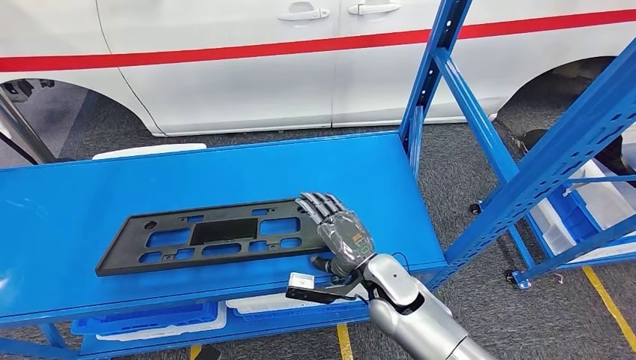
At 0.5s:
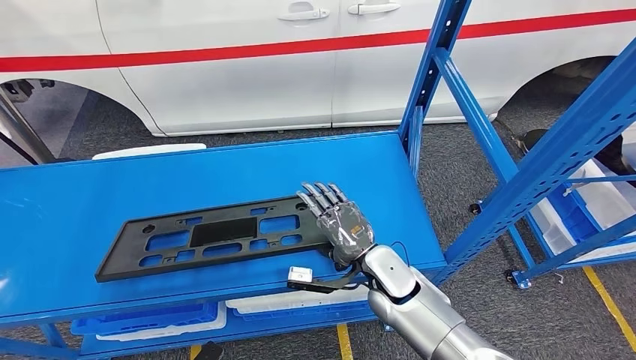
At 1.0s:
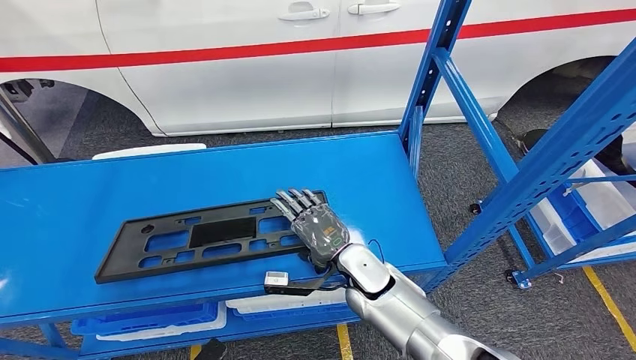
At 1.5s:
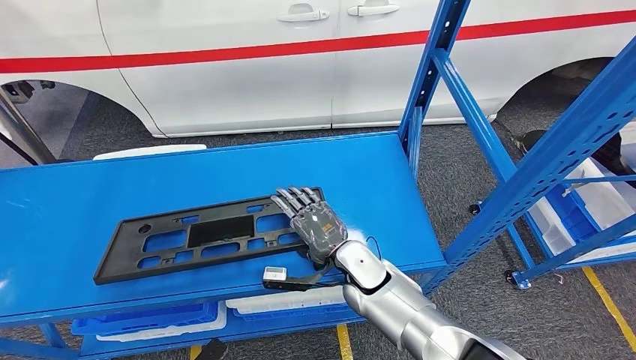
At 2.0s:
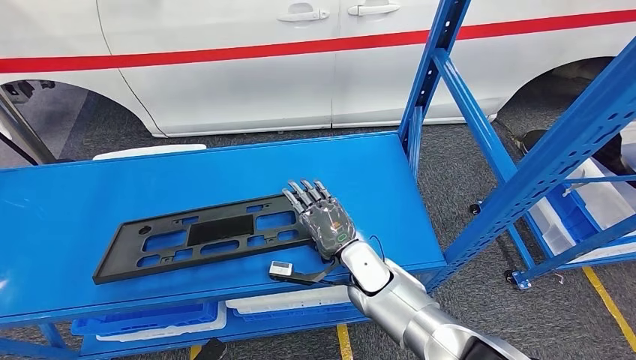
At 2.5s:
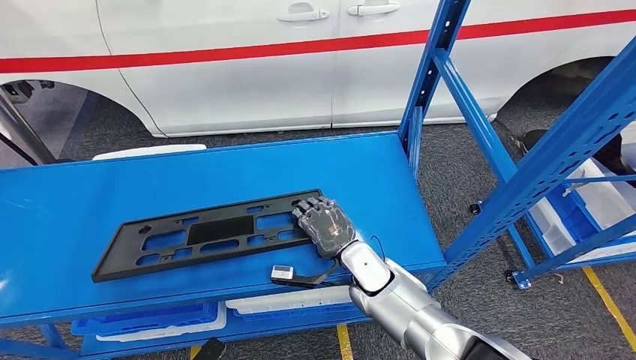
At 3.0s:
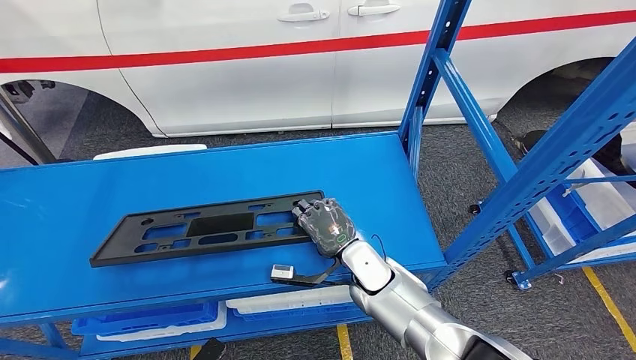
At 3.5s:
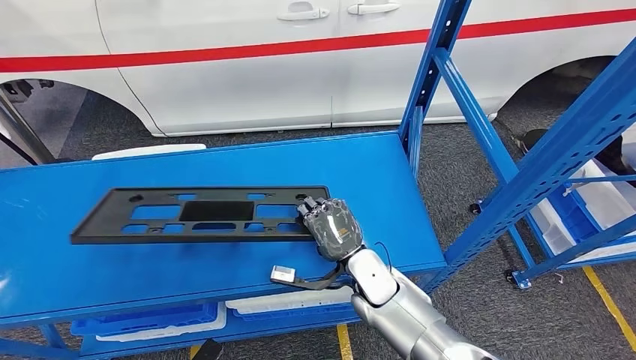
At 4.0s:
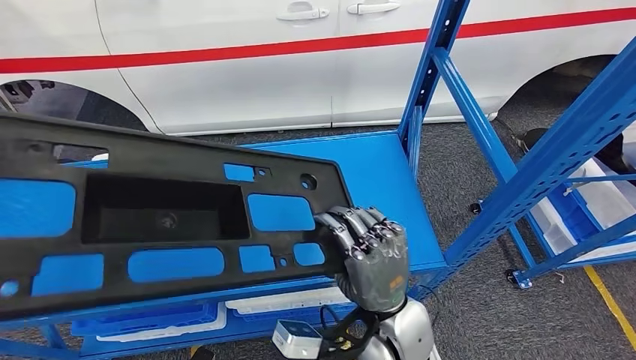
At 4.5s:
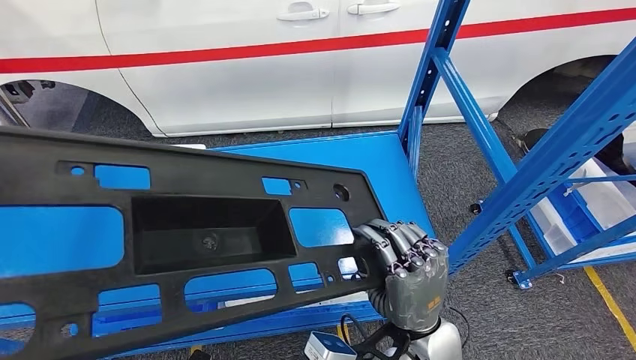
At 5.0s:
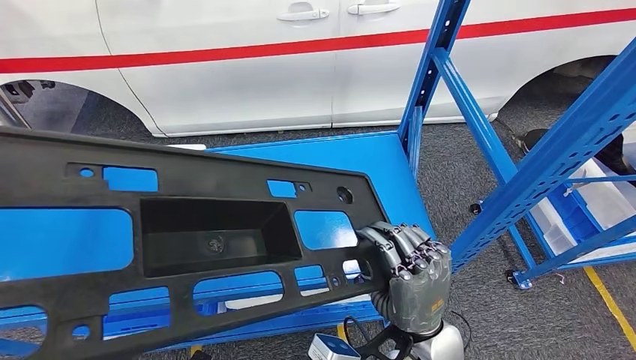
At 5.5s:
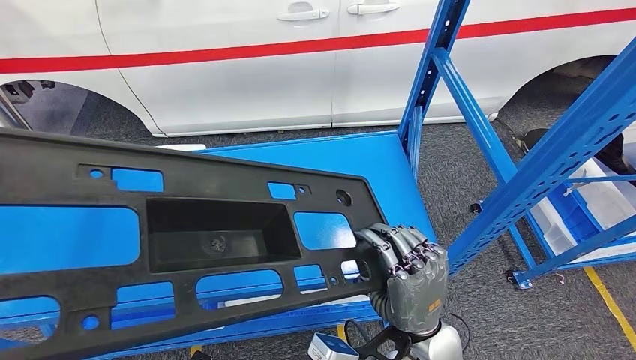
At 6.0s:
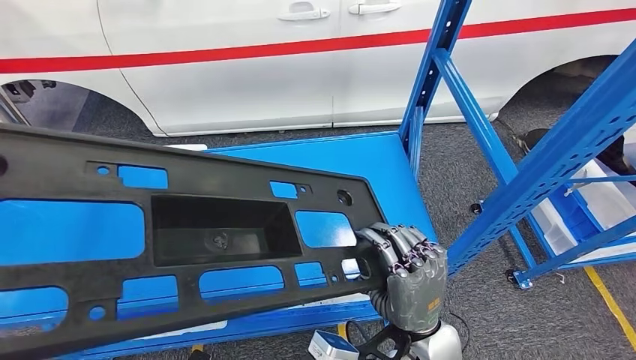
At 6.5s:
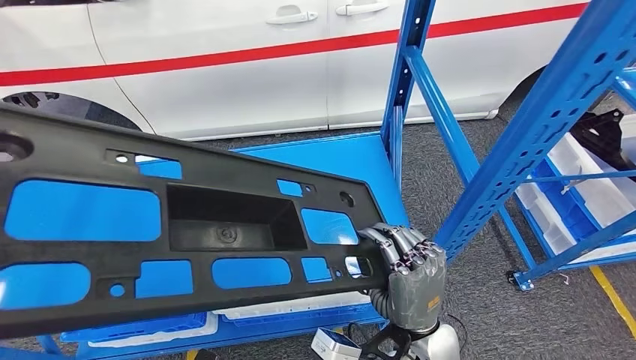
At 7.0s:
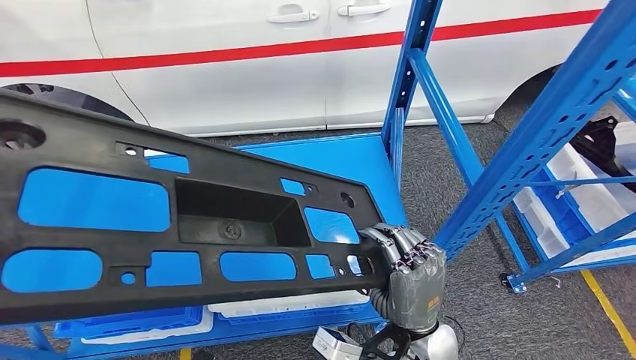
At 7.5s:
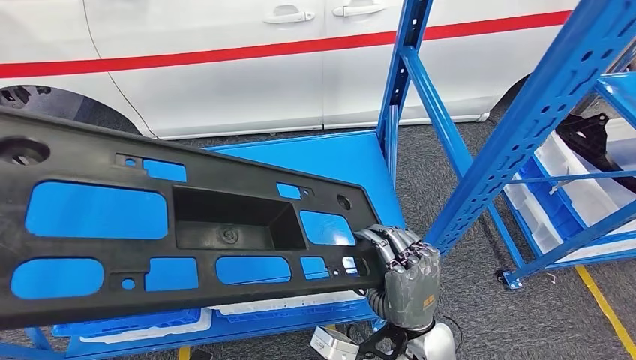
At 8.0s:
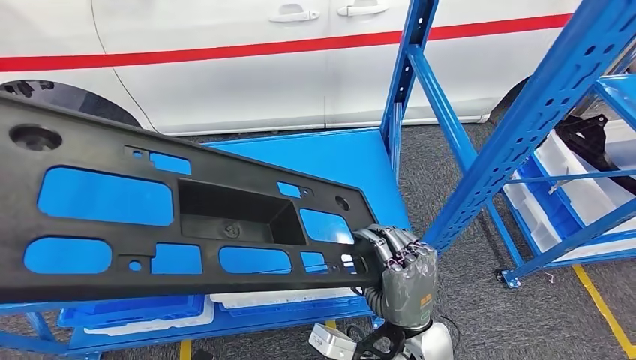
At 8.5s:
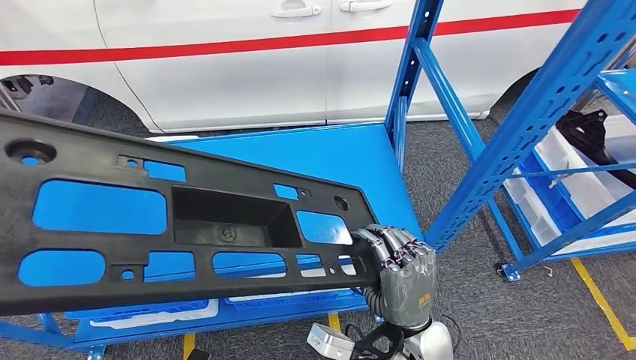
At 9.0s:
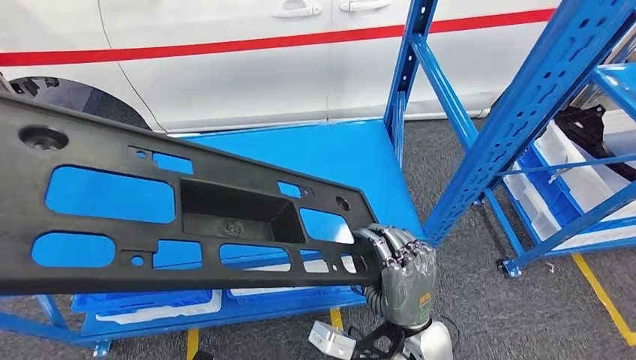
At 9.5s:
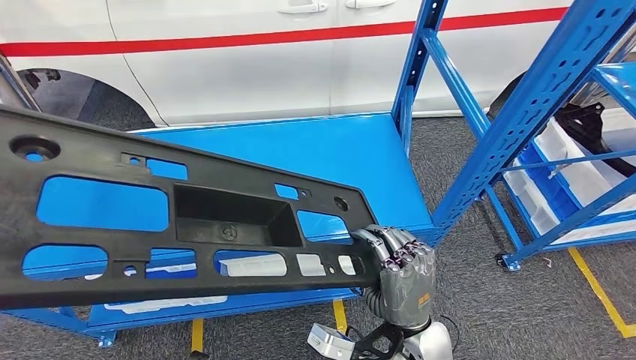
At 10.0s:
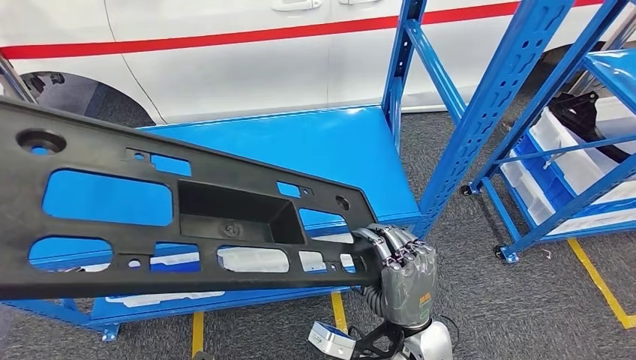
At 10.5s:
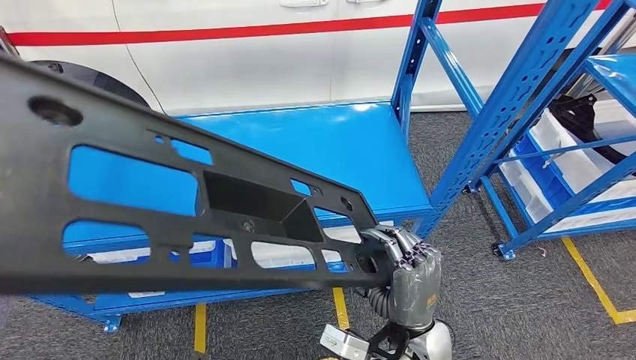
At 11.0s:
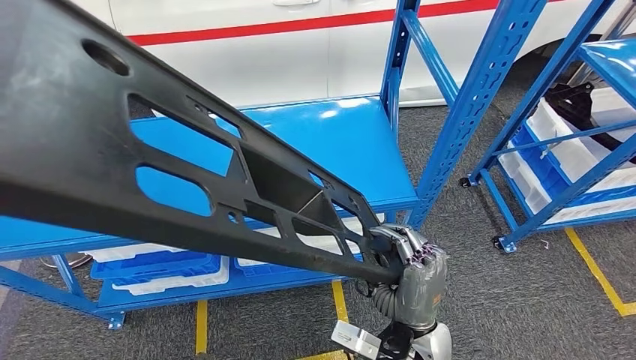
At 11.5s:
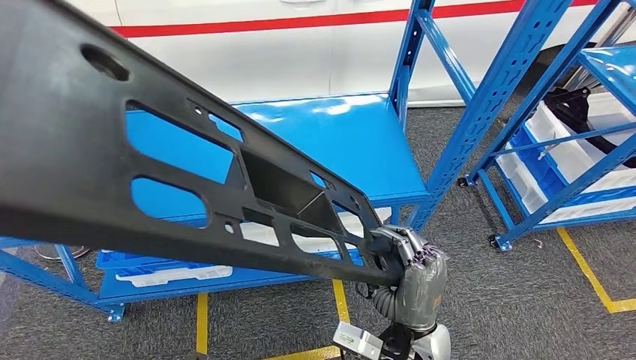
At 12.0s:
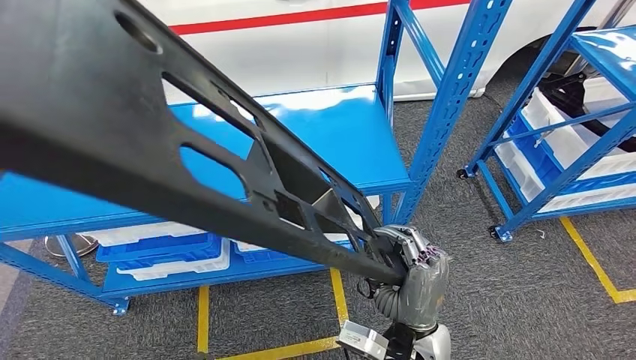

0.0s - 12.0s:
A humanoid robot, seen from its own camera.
Step, 0.0s - 4.0s: Pick up the large material from the shelf.
0.0s - 2.0s: The right hand moves some 5 cm.

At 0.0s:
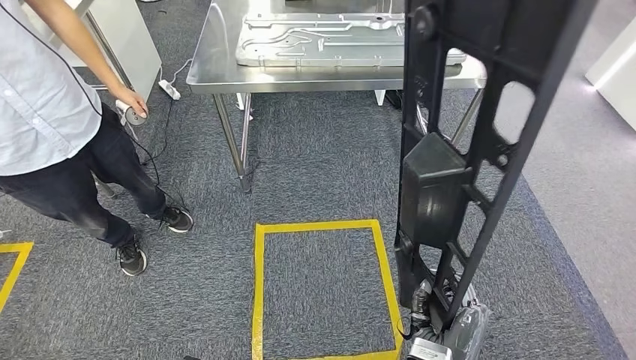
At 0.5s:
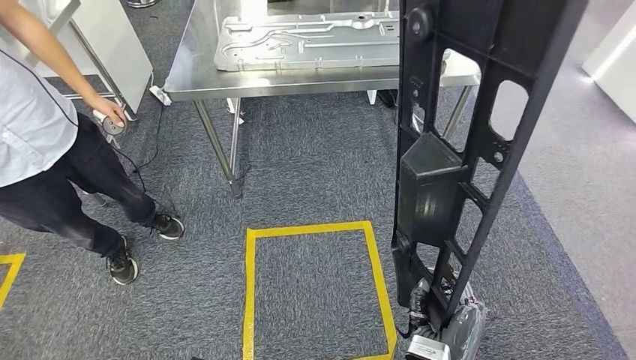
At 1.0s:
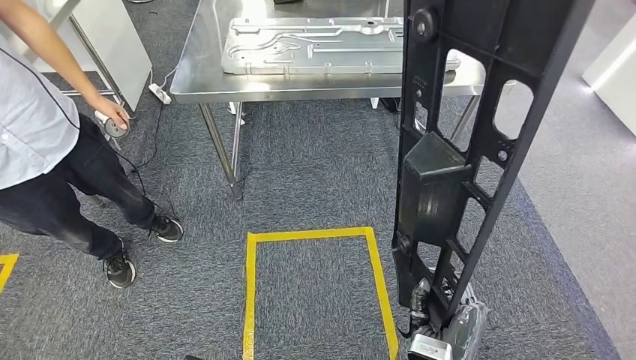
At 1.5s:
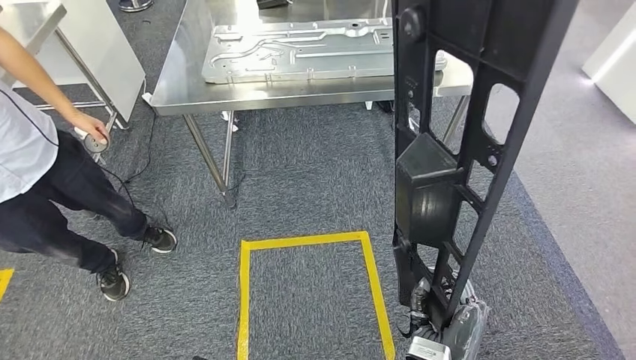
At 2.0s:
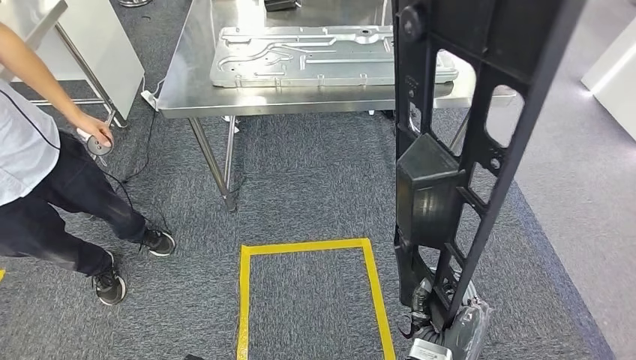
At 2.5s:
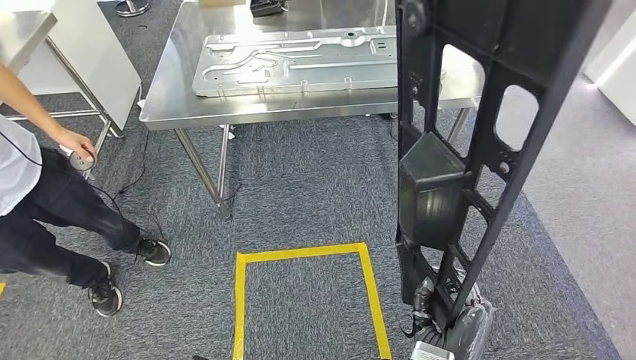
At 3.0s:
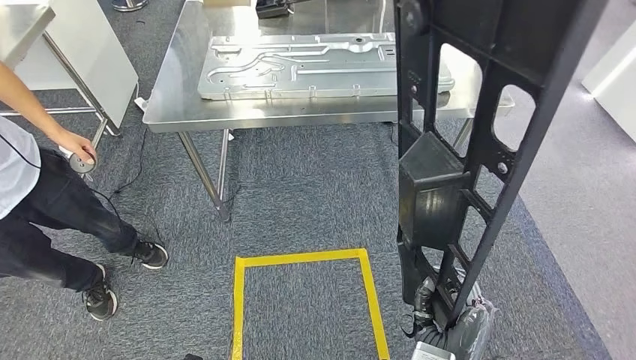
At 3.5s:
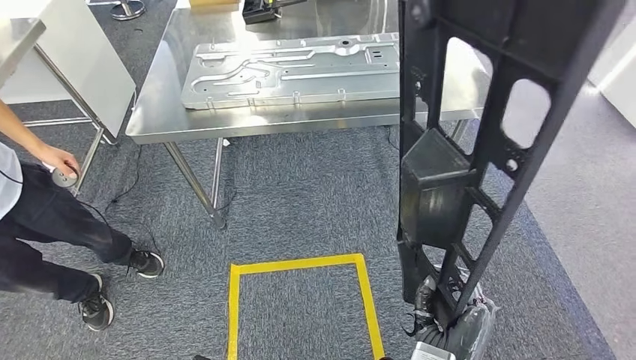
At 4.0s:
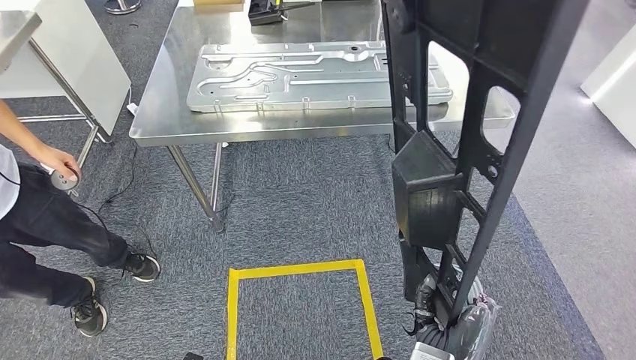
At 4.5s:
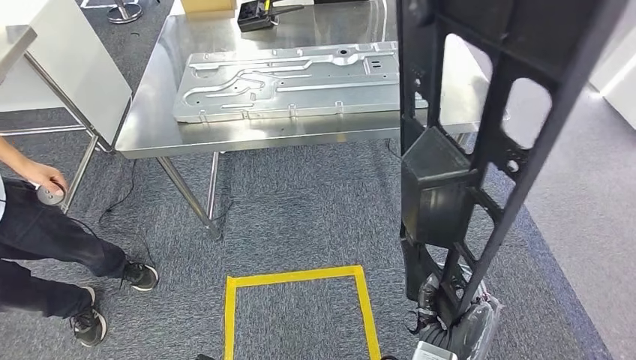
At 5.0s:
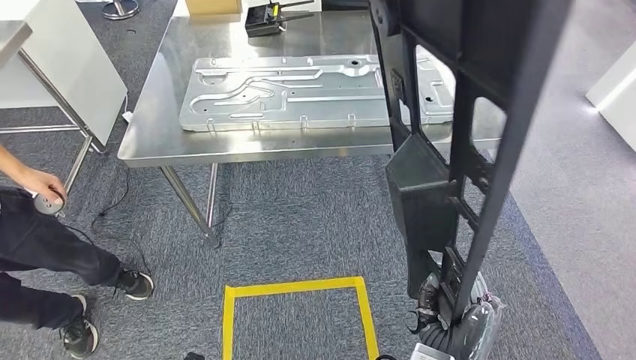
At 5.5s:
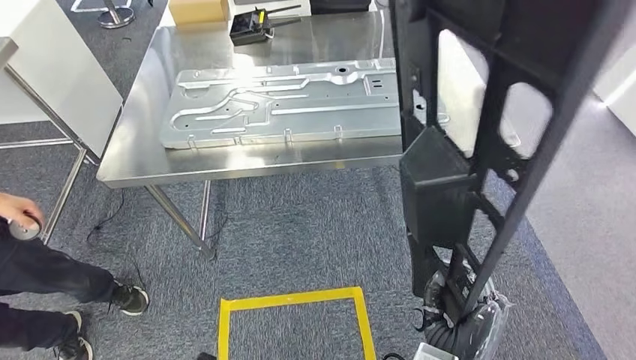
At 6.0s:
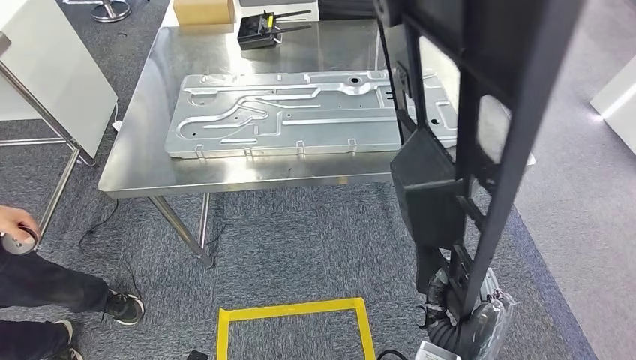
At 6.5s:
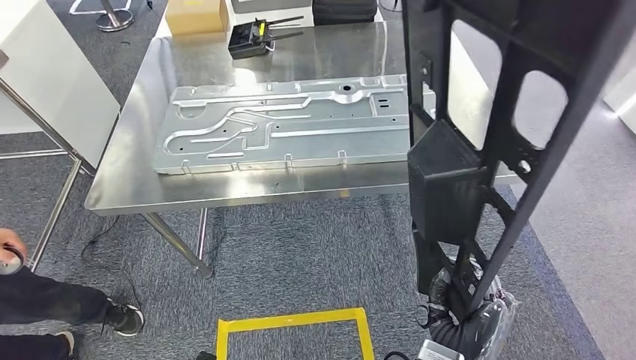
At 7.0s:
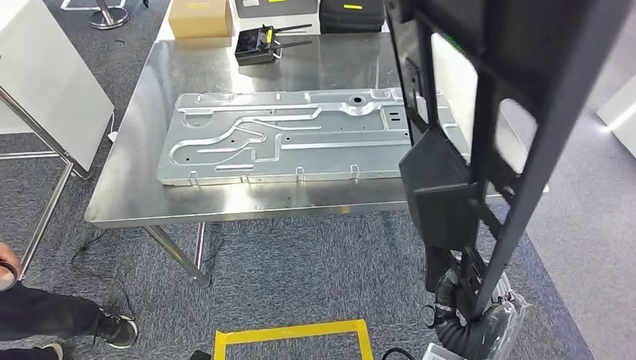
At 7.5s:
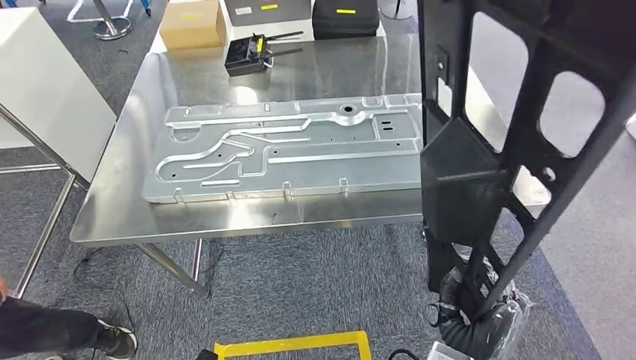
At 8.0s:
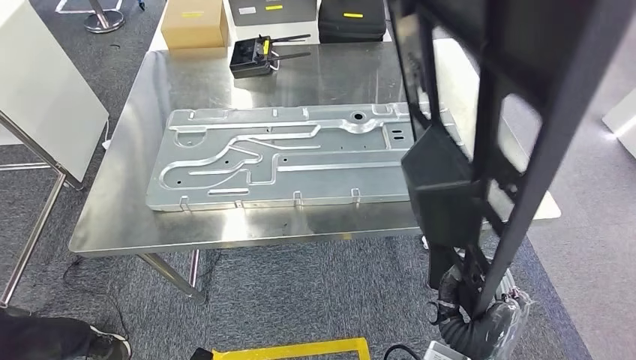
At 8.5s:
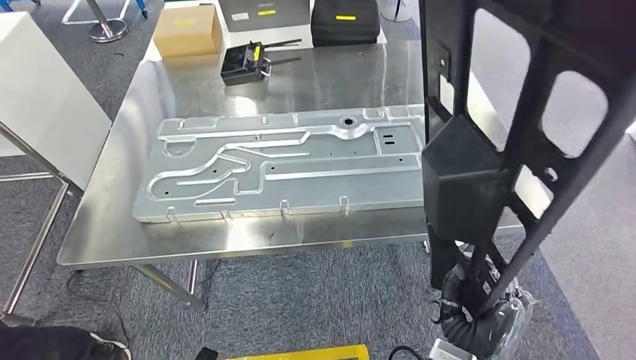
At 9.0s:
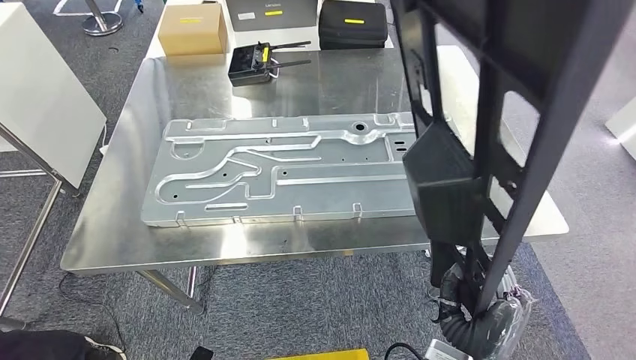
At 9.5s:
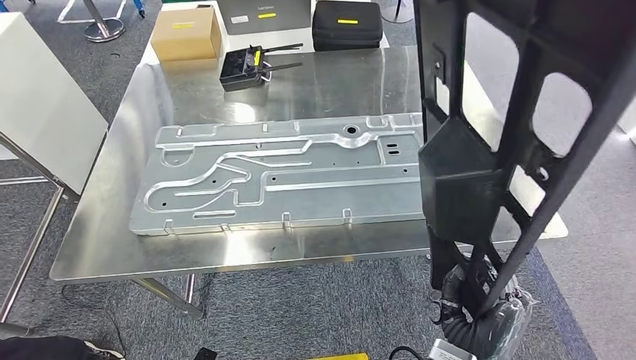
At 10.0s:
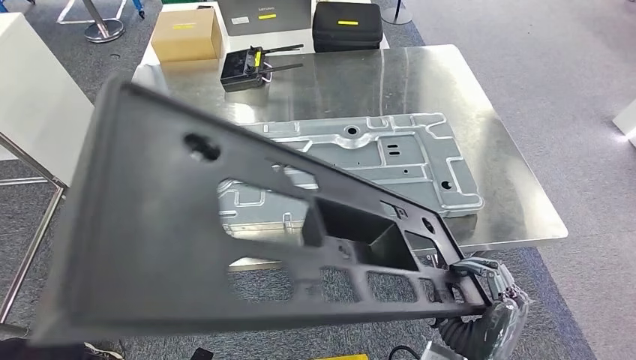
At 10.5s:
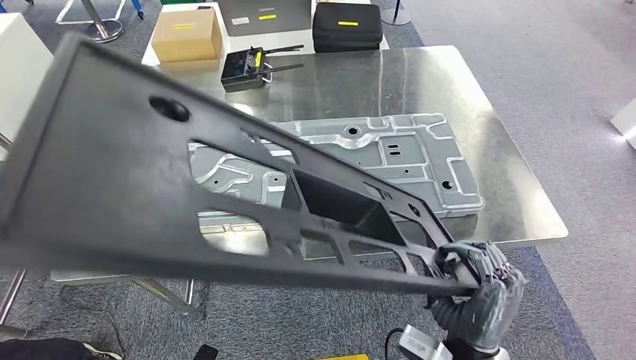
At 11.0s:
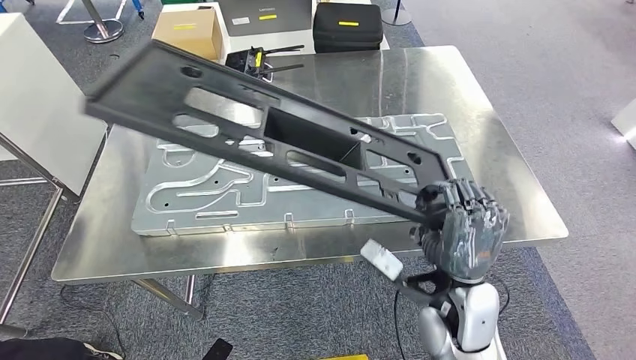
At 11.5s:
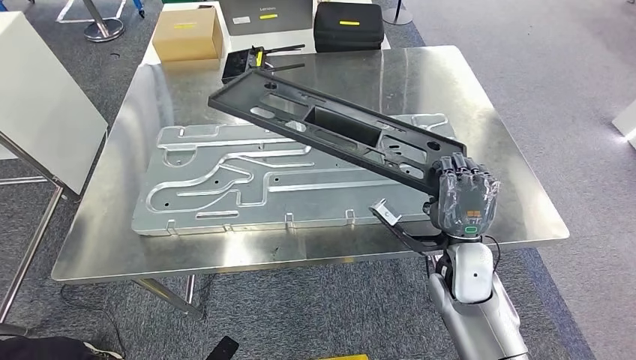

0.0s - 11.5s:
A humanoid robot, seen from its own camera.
Step, 0.0s - 7.5s: Move the large material to the workbench.
